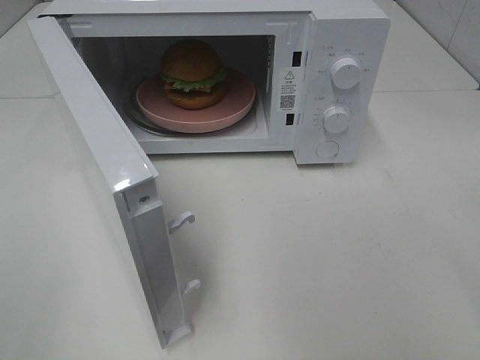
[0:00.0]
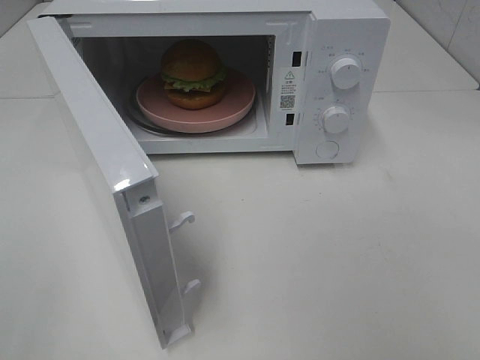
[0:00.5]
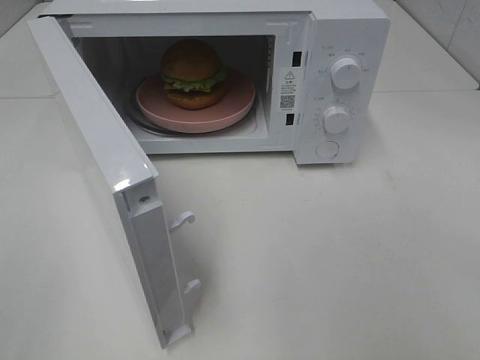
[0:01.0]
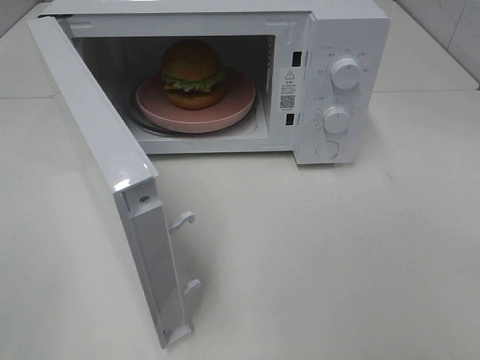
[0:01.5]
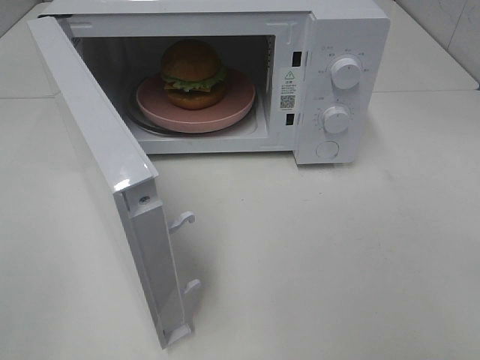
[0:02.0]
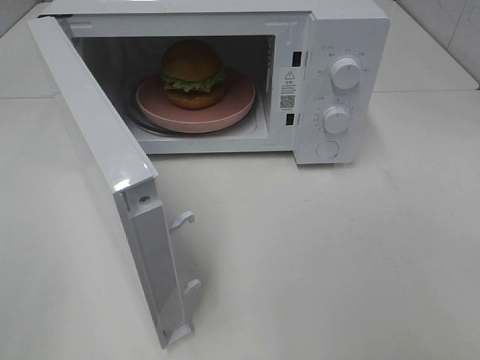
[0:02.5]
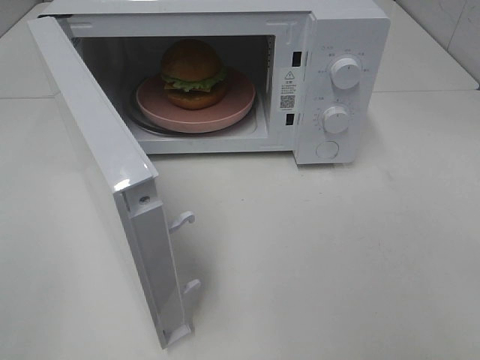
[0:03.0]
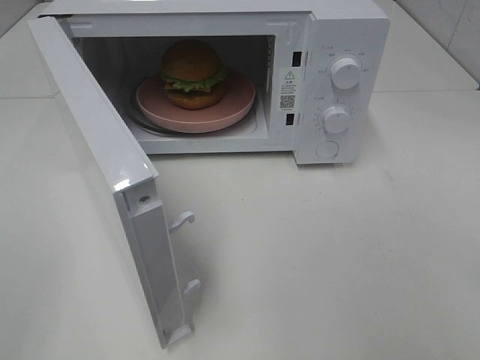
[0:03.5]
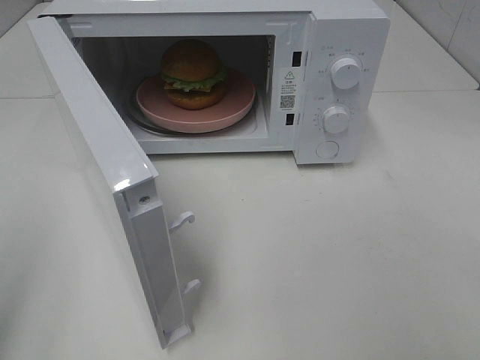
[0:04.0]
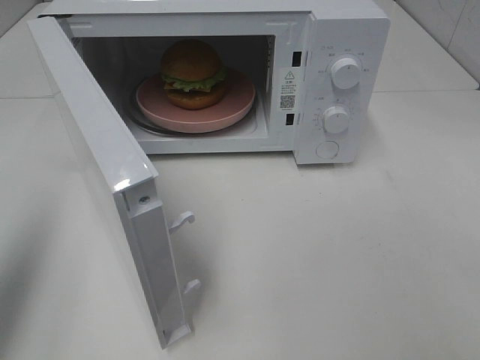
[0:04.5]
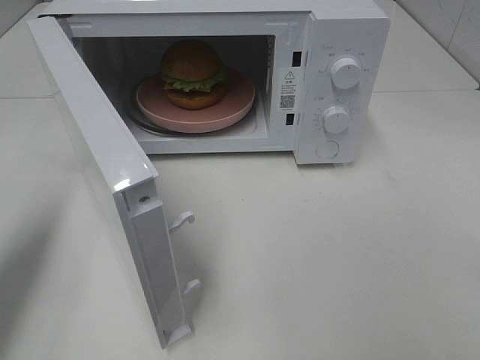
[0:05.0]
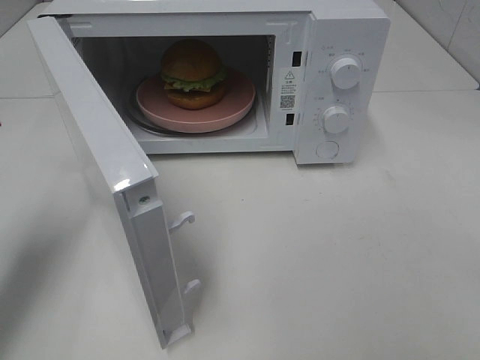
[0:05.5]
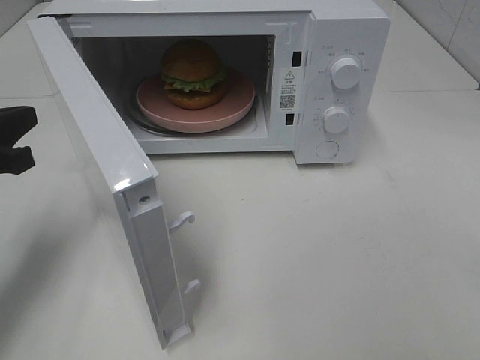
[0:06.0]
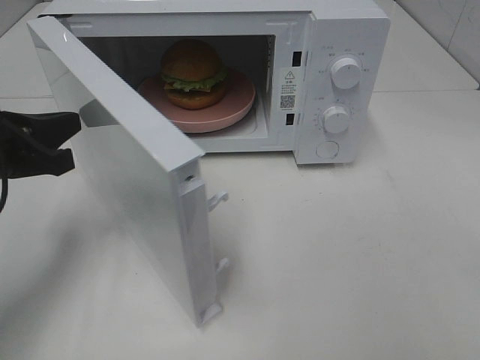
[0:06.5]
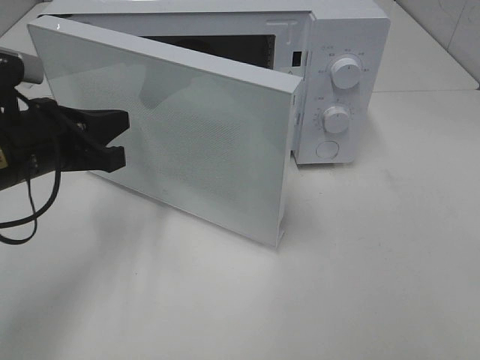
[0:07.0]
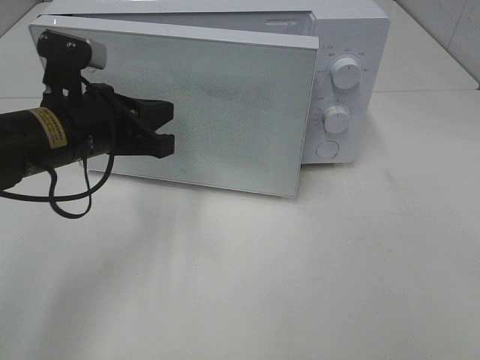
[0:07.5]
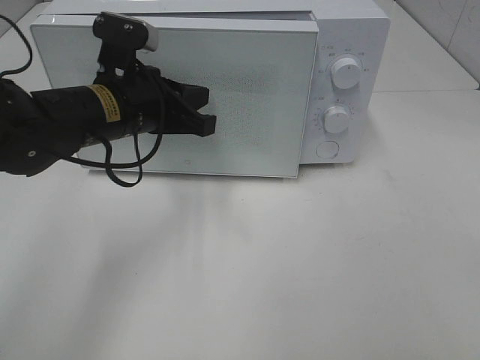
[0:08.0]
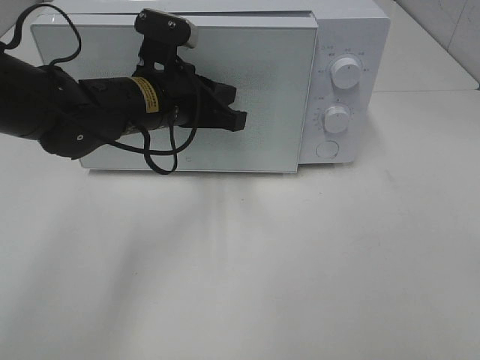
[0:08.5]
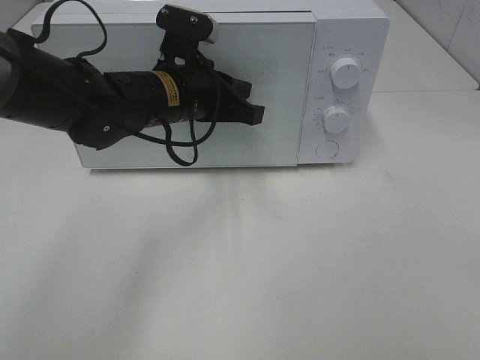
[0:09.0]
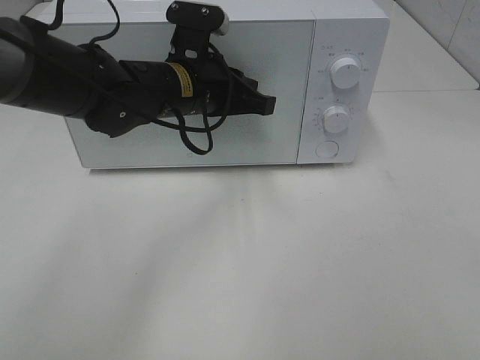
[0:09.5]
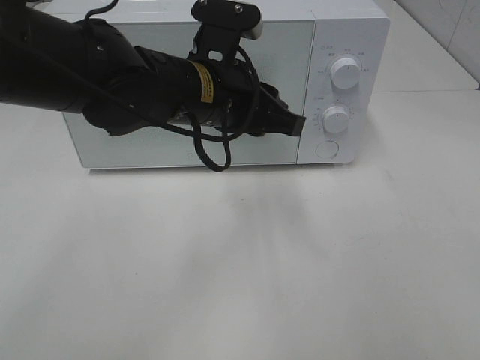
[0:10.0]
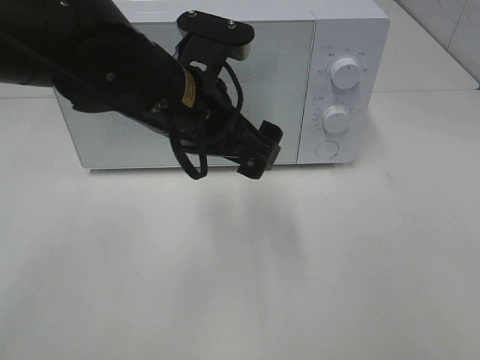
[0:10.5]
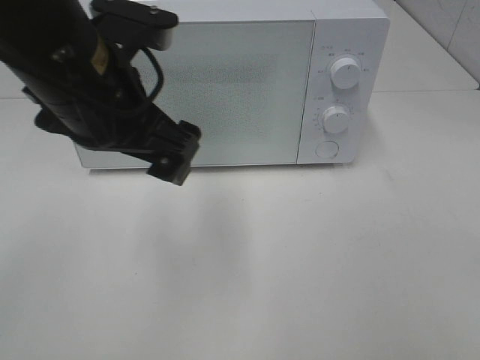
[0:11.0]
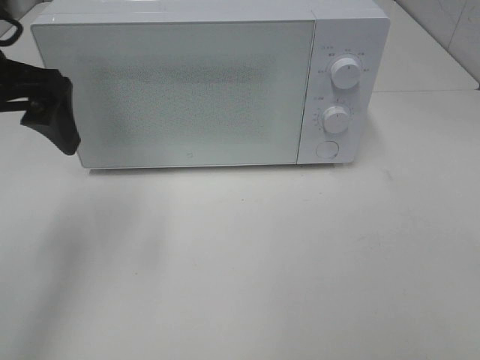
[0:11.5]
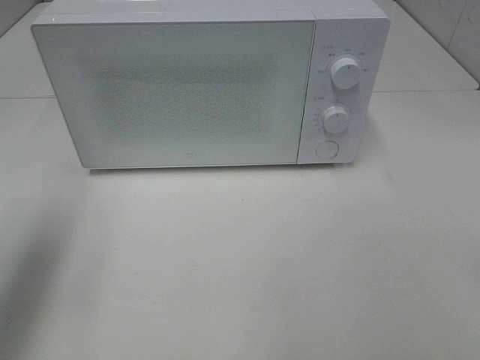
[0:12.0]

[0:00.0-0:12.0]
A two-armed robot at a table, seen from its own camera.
Task of the whole recording: Heat the burger.
Step, 0:00.0 to 0:09.5: Left hand: close the microwave door.
0:04.0 to 0:06.0: The left gripper moves forward and downward, approximately 25 cm.
0:06.0 to 0:08.0: The left gripper heads to the right and forward, covering approximately 20 cm.
0:08.0 to 0:10.0: The left gripper shifts roughly 10 cm to the right, and opens up.
0:10.0 to 0:12.0: The left gripper moves to the left, approximately 25 cm, and opens up.

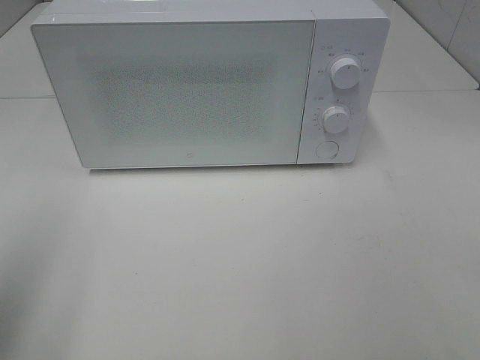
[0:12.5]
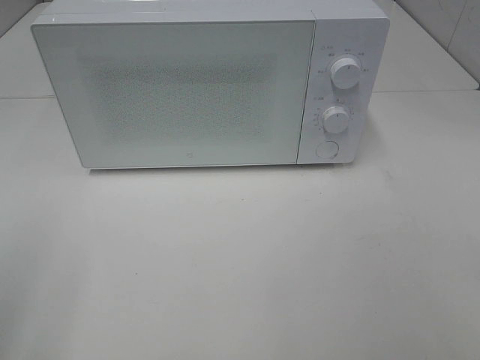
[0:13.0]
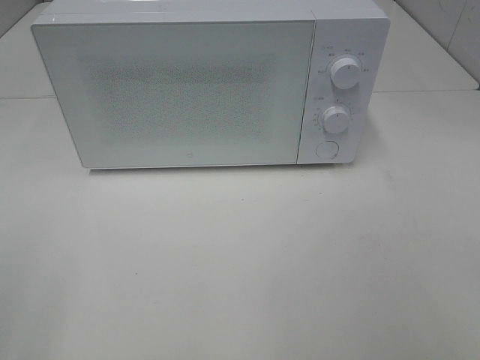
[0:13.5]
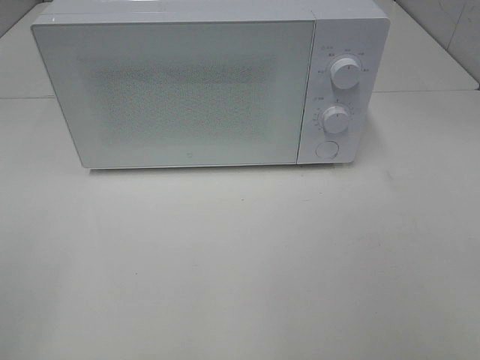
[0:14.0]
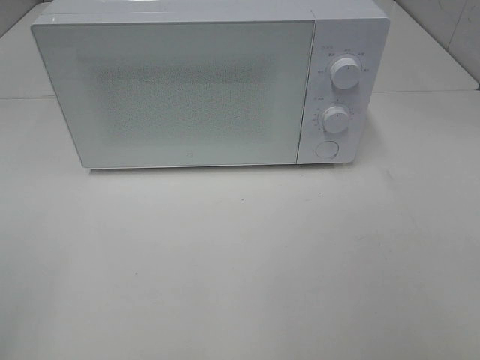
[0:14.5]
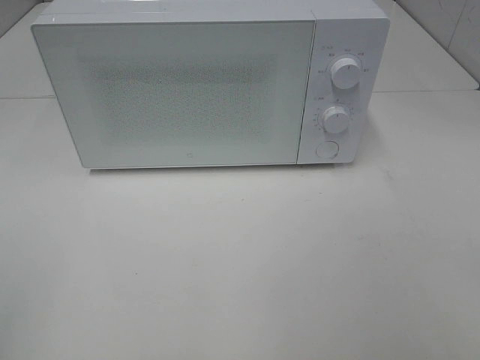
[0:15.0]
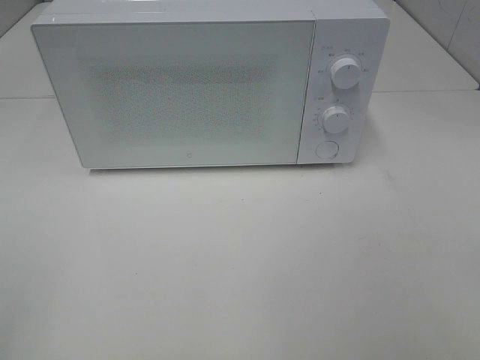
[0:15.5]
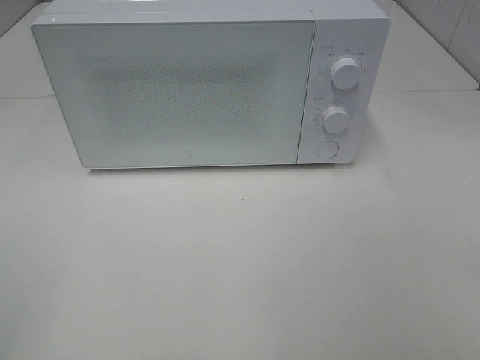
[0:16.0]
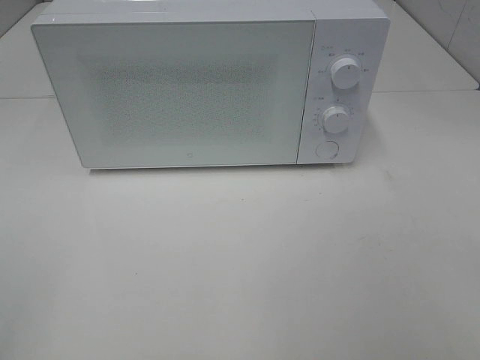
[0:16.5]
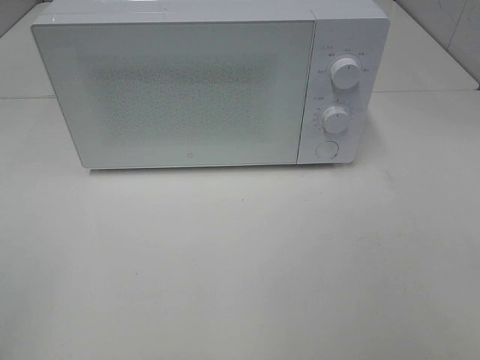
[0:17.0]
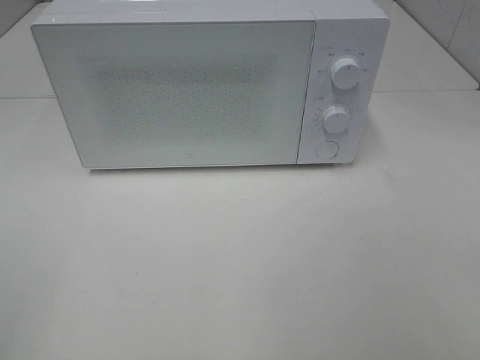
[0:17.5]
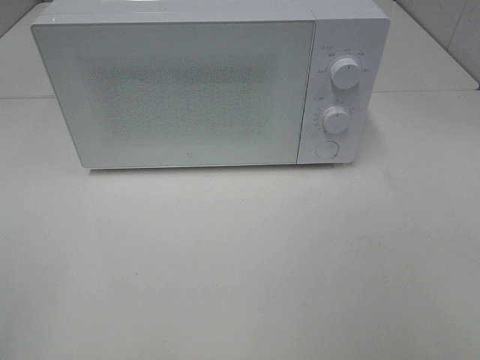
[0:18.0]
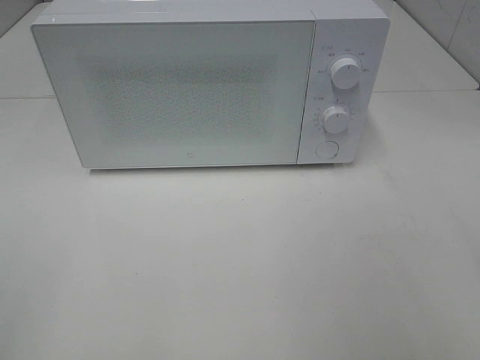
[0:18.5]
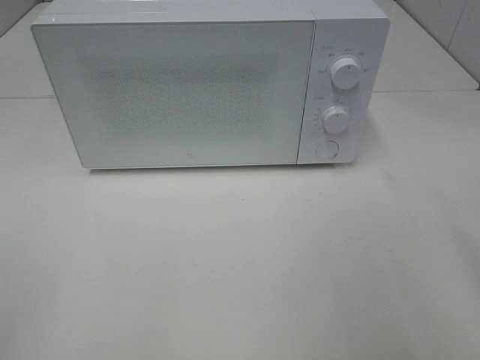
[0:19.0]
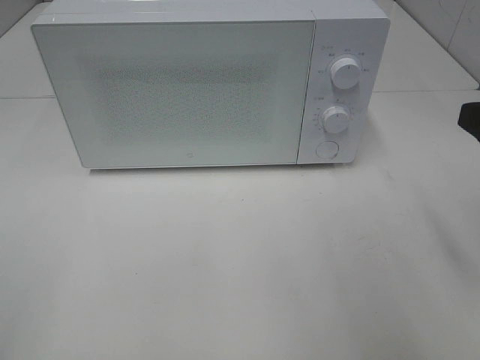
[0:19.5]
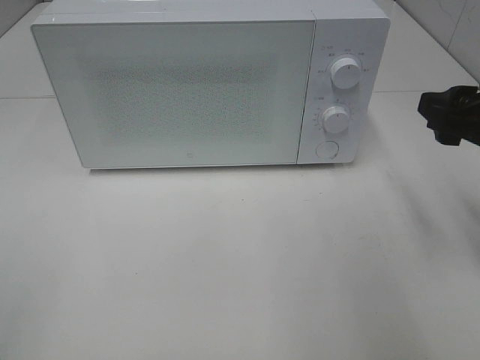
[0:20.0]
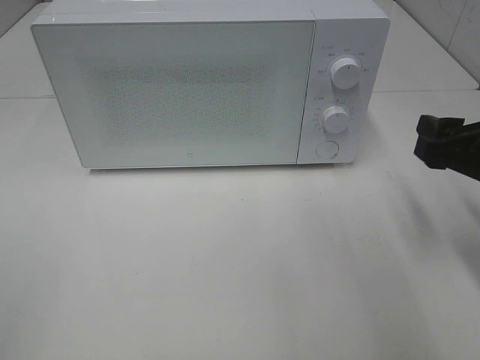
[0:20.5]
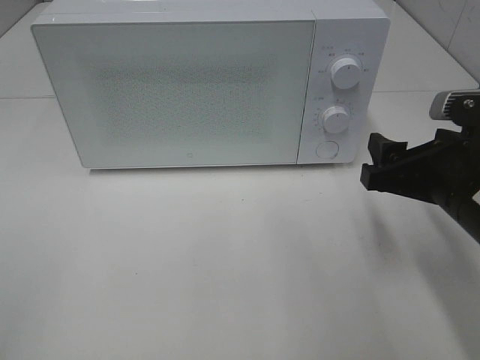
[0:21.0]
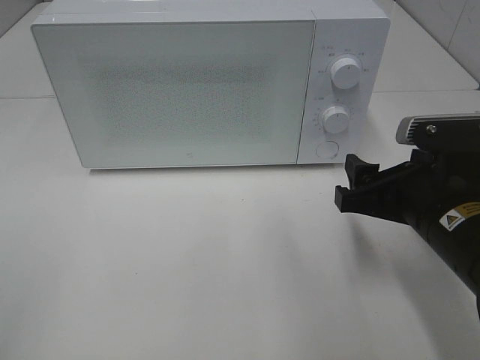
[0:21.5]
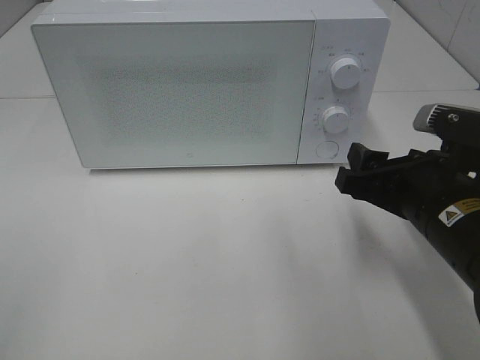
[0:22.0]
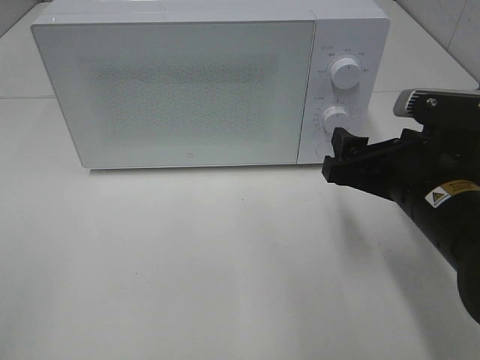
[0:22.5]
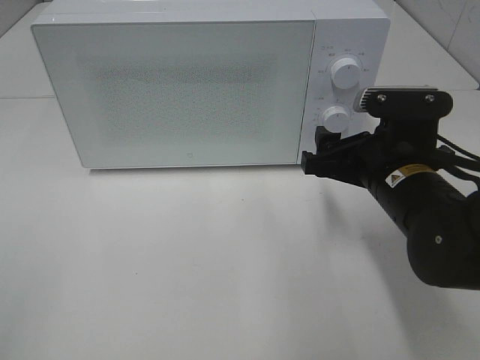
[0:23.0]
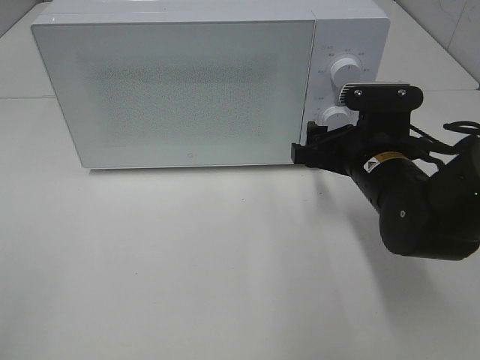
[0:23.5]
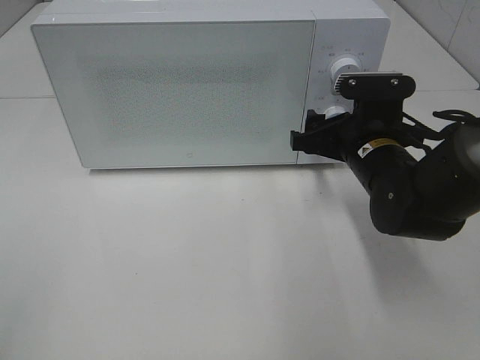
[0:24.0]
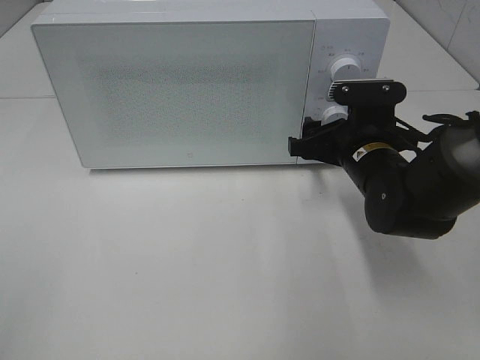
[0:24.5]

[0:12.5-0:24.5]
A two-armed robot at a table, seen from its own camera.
Task of the whole recording: Heat the burger.
0:12.5 to 0:14.5: The left gripper goes roughly 10 cm backward.
0:18.5 to 0:20.5: The right gripper heads forward and downward, covering about 20 cm.
0:20.5 to 0:22.5: The right gripper heads to the left, covering roughly 10 cm.
0:22.5 to 0:24.5: The right gripper shifts some 10 cm forward and downward.

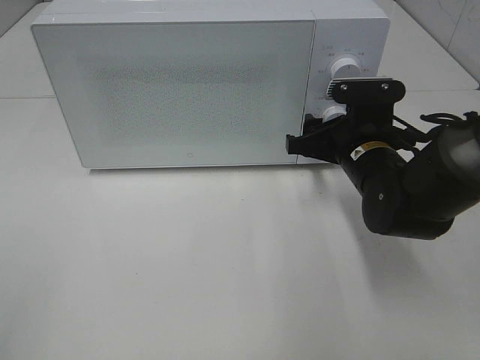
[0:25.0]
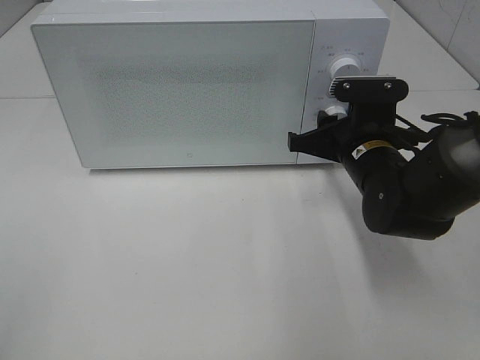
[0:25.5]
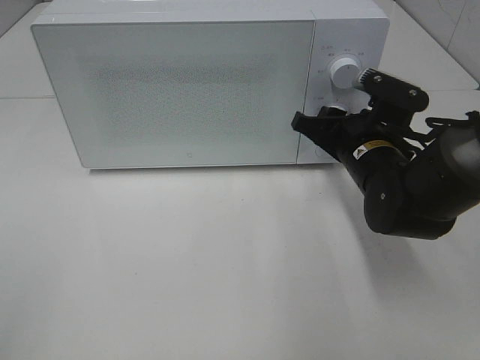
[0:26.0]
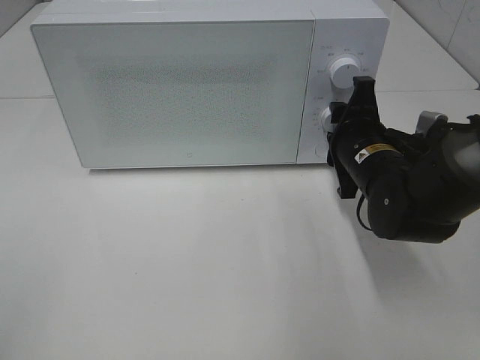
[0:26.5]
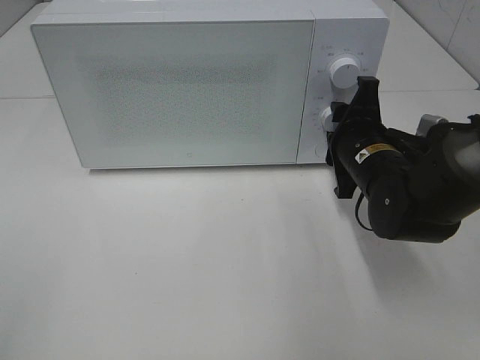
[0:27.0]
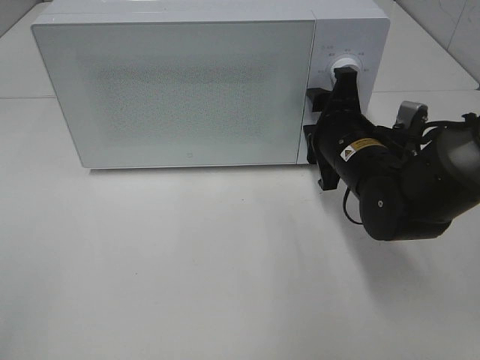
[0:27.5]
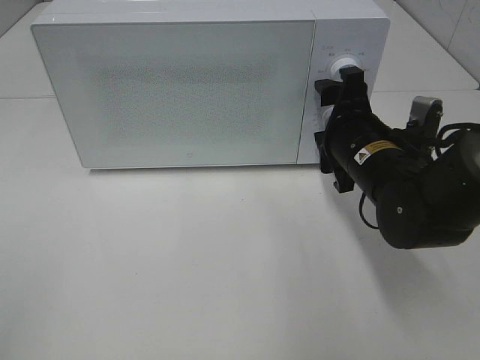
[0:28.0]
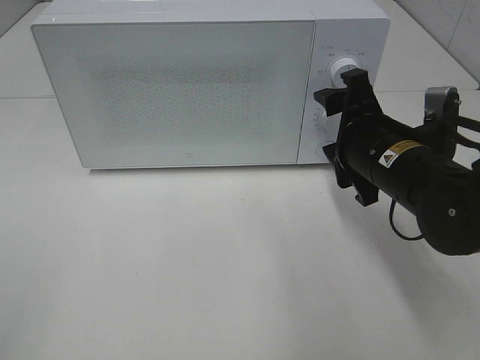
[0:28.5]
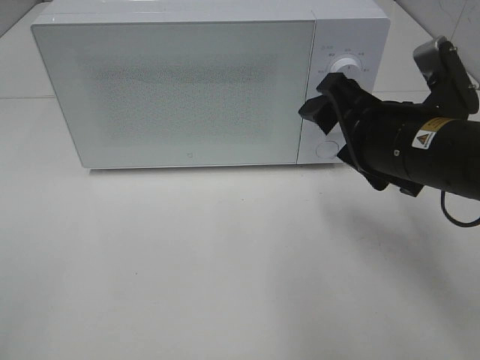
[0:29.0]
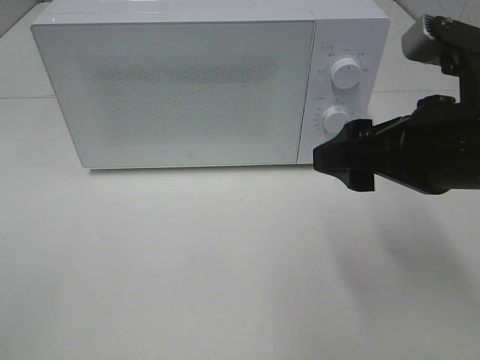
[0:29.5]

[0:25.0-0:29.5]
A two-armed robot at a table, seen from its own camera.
Task of the whole recording: Heat the burger.
Step, 0:25.0 to 0:27.0: Right hand: twist timer button.
0:27.0 to 0:29.5: The right gripper shifts some 20 cm upward and backward, and opens.
